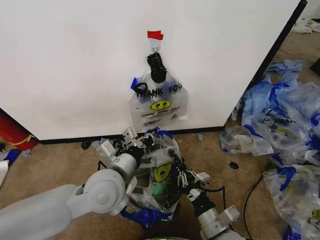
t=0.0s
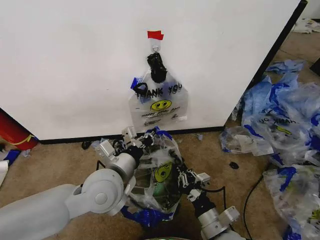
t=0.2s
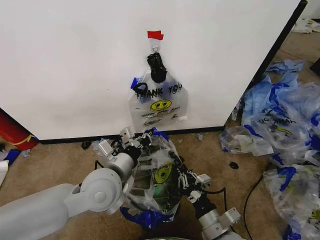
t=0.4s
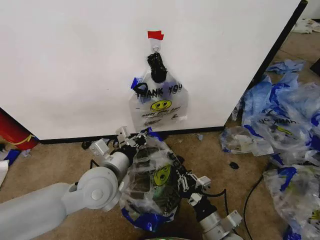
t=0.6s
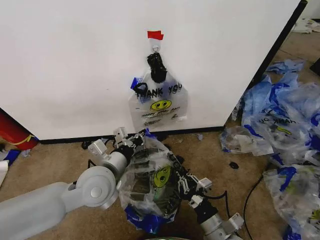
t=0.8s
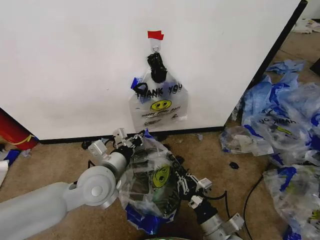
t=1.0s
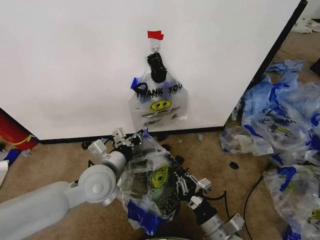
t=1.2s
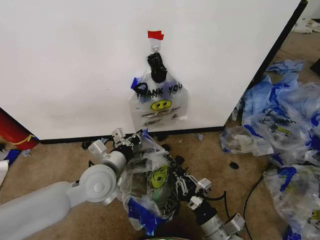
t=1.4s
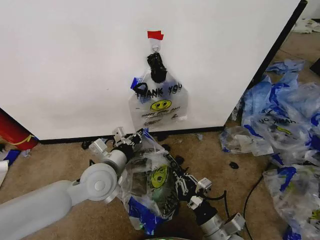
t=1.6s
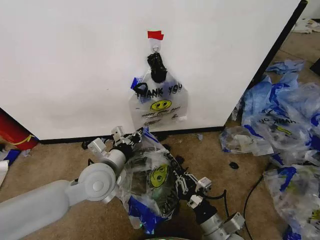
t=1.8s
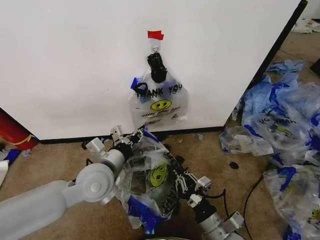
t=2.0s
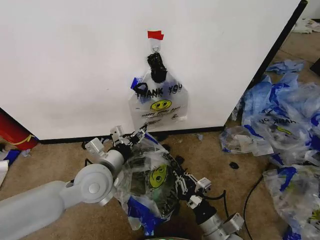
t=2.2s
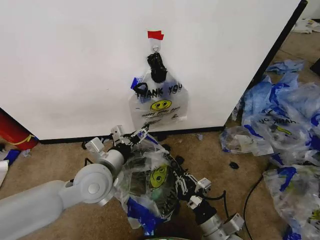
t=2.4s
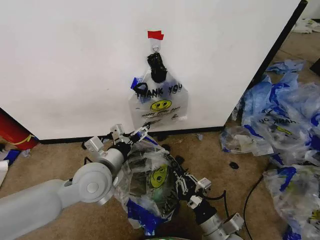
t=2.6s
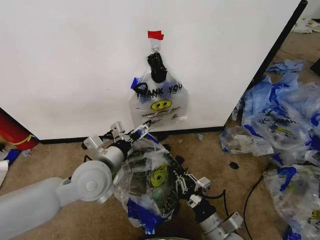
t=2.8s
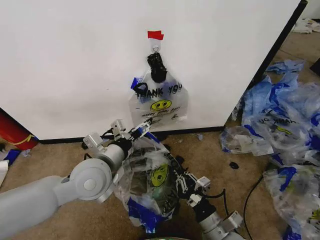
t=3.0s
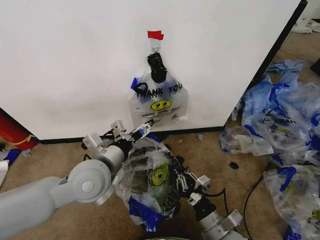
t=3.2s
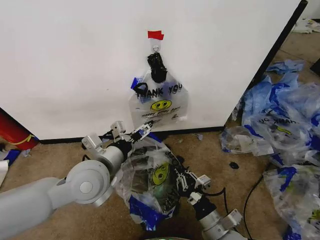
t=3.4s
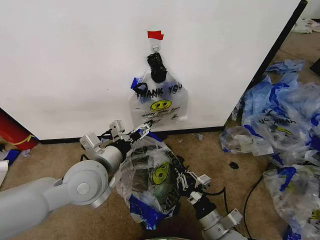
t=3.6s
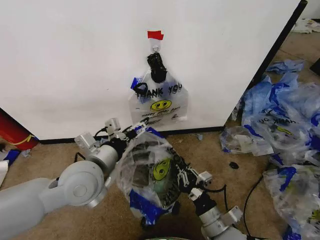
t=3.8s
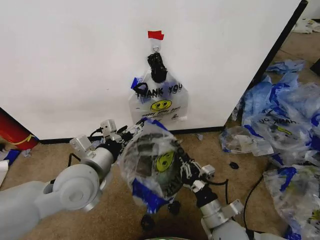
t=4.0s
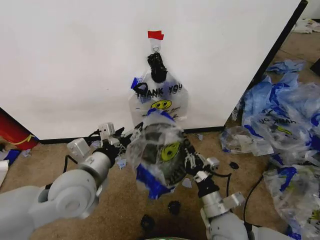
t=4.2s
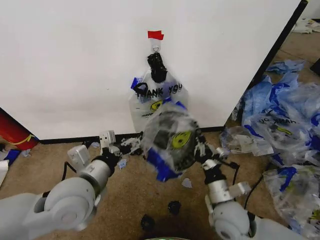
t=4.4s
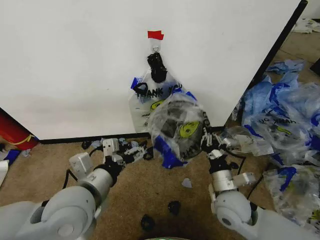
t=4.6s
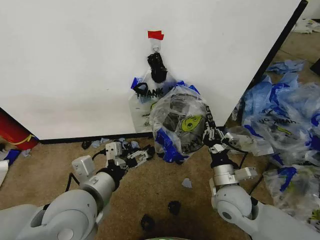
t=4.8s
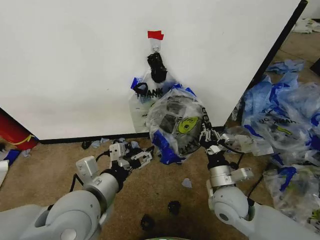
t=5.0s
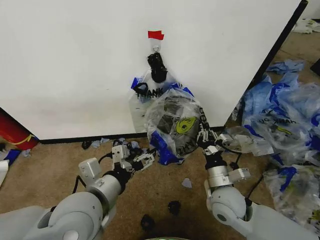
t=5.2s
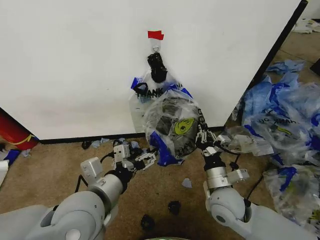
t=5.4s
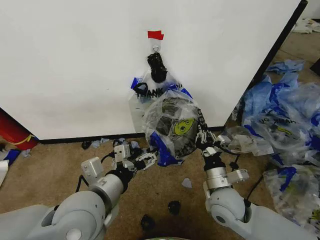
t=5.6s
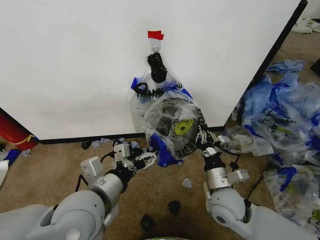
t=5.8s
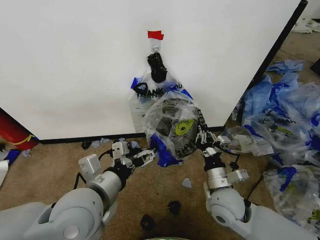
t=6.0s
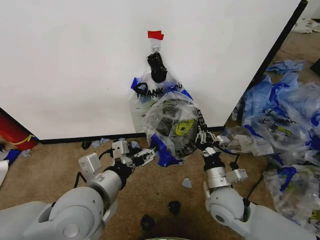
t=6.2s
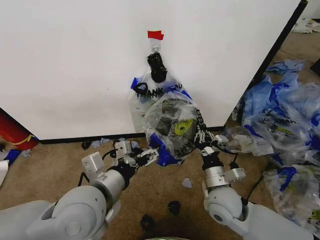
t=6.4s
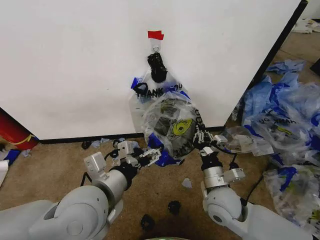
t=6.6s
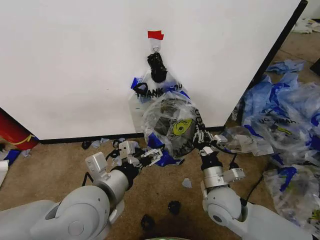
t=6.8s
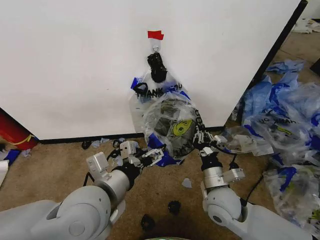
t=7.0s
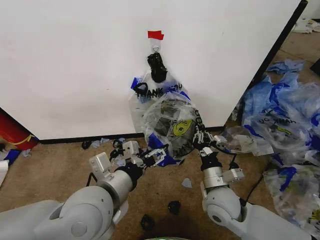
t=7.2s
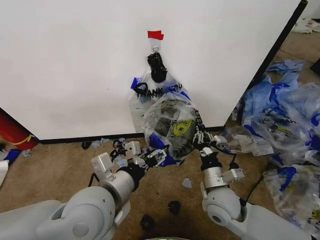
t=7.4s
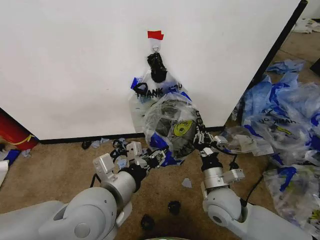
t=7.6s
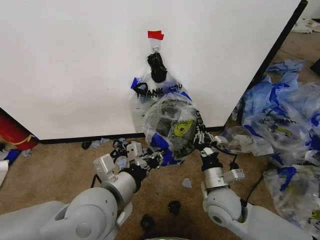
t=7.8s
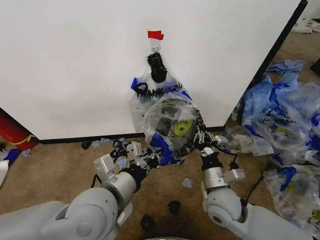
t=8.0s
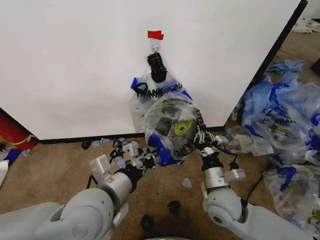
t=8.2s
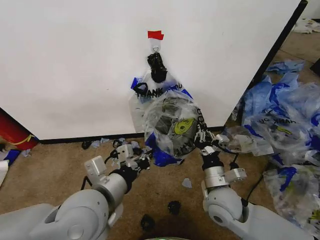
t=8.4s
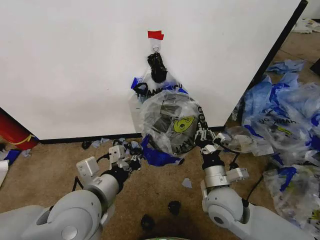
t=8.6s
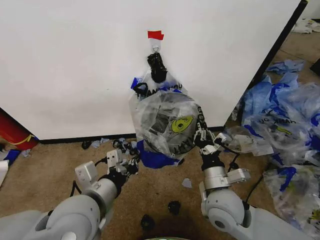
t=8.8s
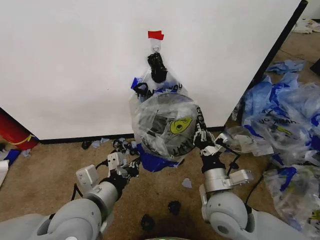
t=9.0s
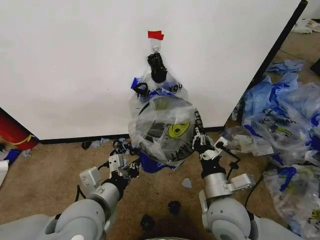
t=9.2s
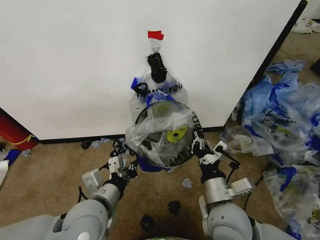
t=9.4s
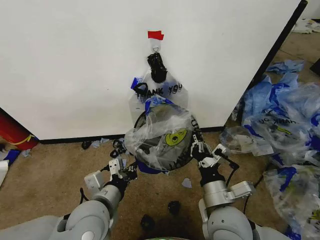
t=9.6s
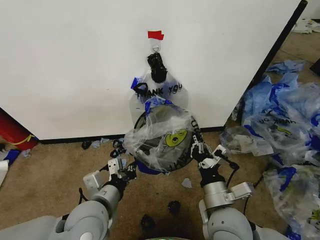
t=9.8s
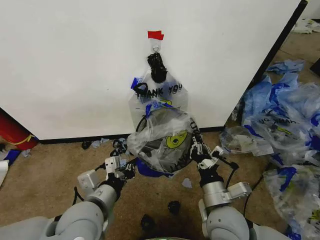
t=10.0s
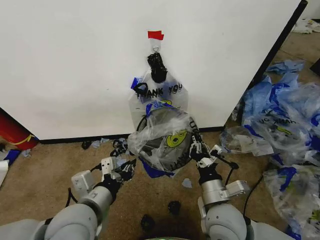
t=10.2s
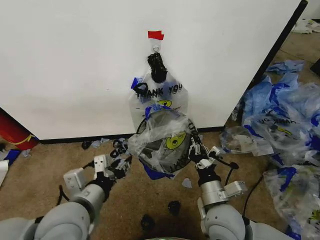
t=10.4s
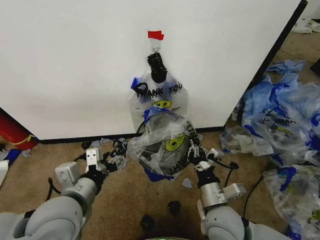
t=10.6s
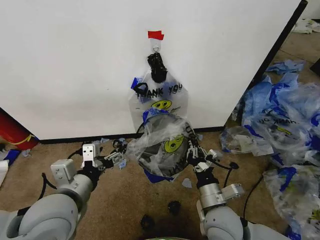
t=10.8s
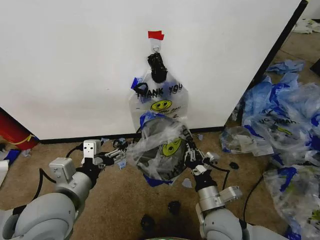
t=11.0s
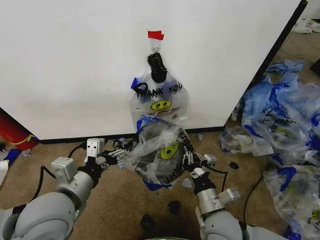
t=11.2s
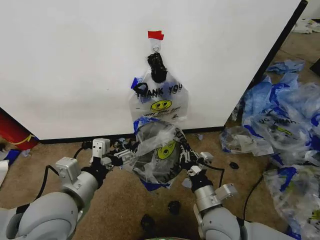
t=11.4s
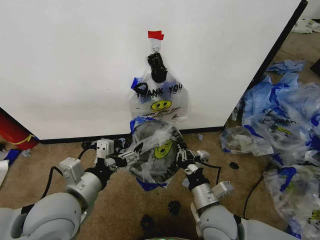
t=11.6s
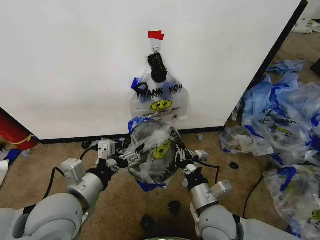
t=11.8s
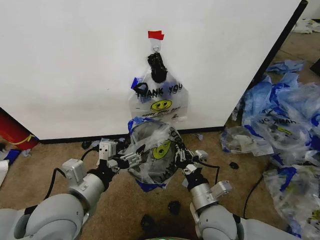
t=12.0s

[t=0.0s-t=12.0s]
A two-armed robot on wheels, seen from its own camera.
Task of the whole recording: Pick up the garbage bag from the wall and place it over the trash bin.
t=0.0s to t=1.6s: The left gripper ends up approximately 5 cm from where it was.
t=1.6s to t=3.0s: The left gripper opens.
t=3.0s to t=4.4s: The right gripper shifts some 10 cm forward, while the left gripper goes some 5 cm backward.
t=4.4s to t=6.0s: The grippers stay close to where they were, moving slightly.
t=6.0s to t=7.6s: The left gripper closes up.
t=7.6s to t=9.0s: The right gripper moves about 5 cm; the left gripper closes.
t=9.0s to t=10.4s: The left gripper opens up.
t=10.4s to t=12.0s: The left gripper opens.

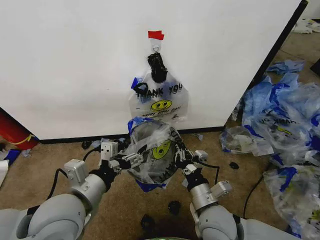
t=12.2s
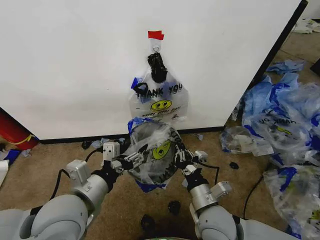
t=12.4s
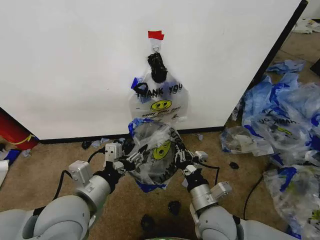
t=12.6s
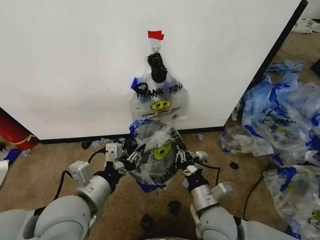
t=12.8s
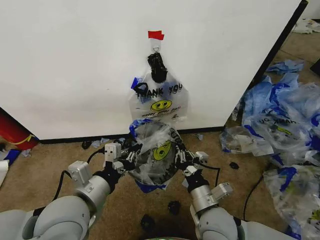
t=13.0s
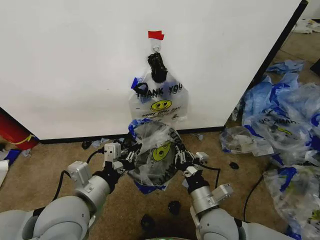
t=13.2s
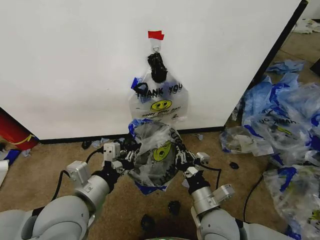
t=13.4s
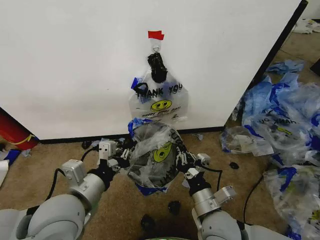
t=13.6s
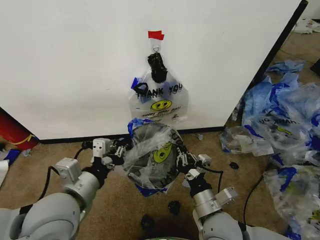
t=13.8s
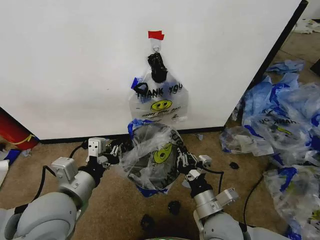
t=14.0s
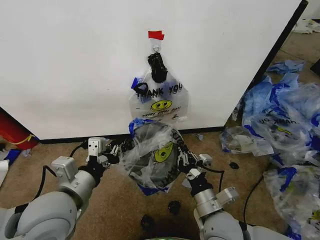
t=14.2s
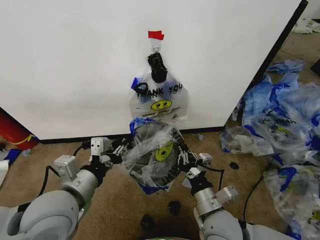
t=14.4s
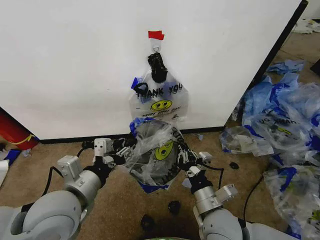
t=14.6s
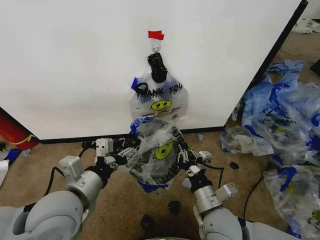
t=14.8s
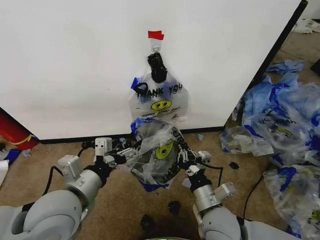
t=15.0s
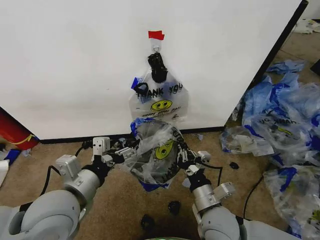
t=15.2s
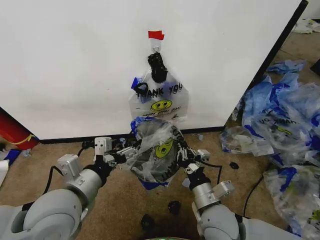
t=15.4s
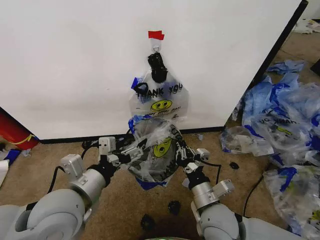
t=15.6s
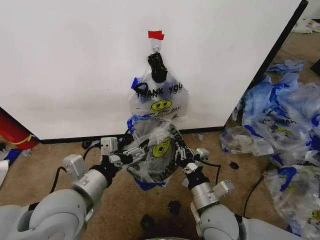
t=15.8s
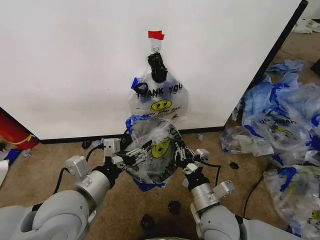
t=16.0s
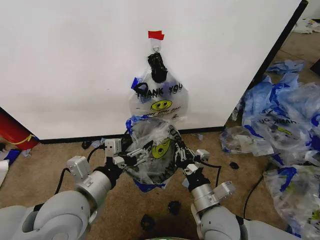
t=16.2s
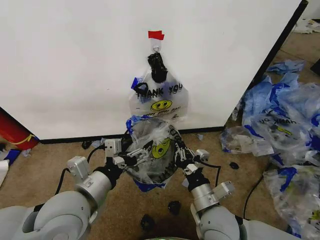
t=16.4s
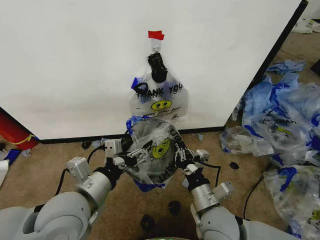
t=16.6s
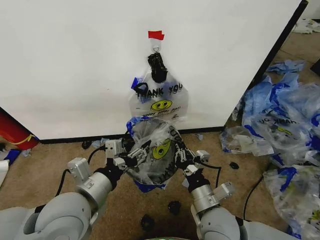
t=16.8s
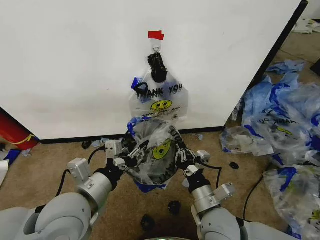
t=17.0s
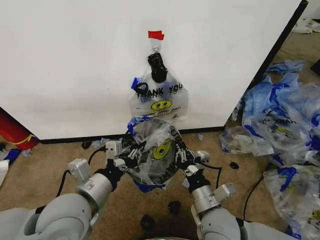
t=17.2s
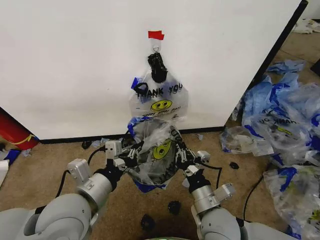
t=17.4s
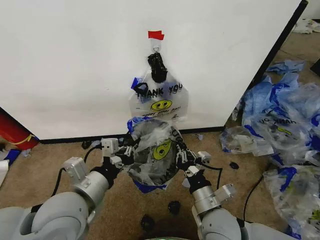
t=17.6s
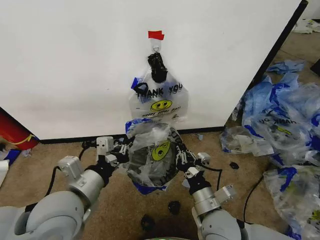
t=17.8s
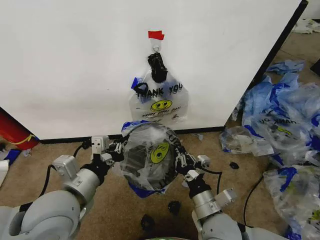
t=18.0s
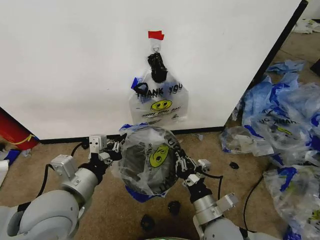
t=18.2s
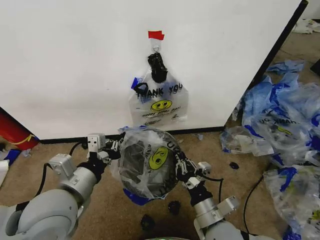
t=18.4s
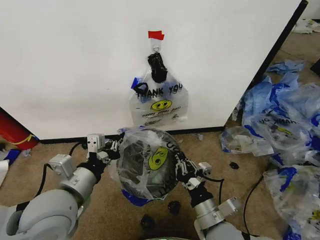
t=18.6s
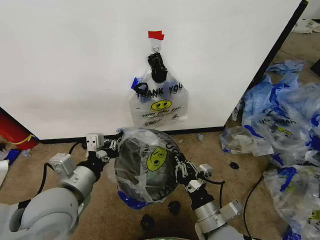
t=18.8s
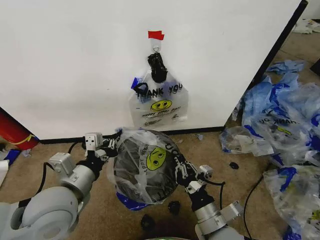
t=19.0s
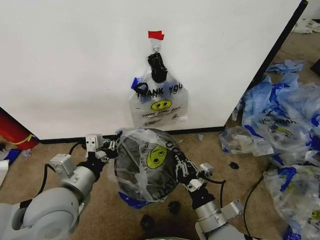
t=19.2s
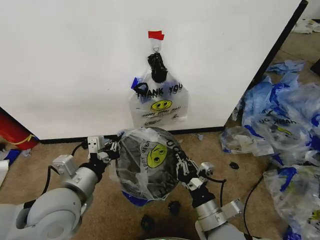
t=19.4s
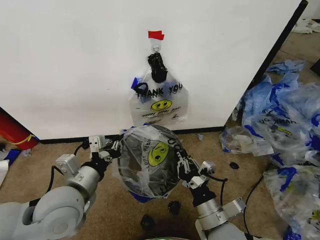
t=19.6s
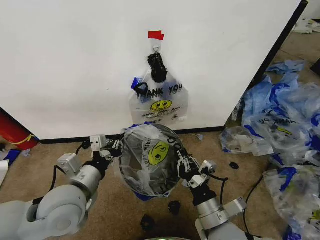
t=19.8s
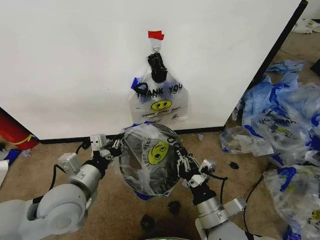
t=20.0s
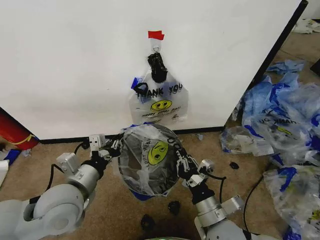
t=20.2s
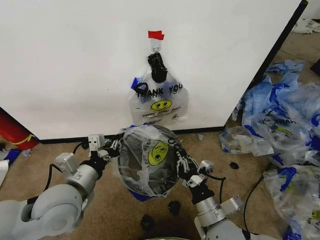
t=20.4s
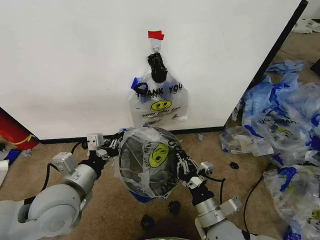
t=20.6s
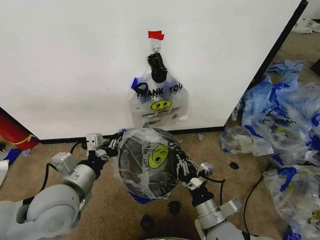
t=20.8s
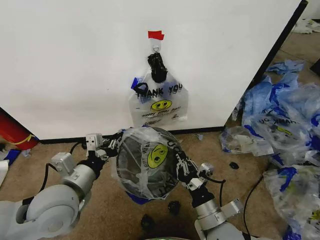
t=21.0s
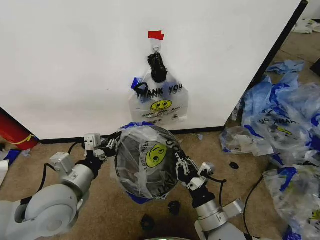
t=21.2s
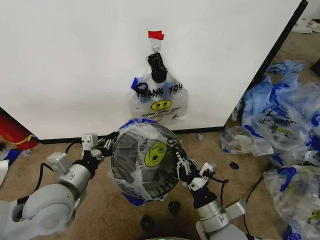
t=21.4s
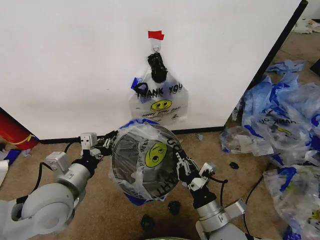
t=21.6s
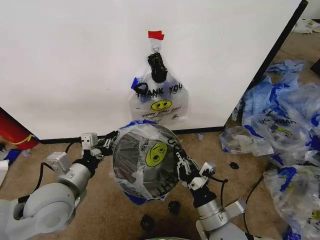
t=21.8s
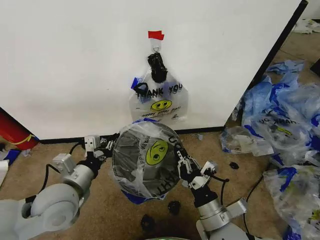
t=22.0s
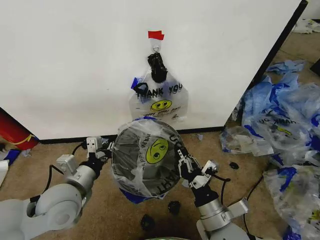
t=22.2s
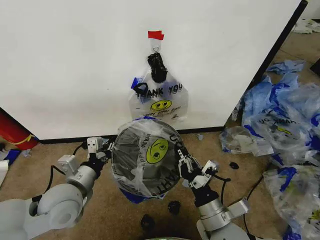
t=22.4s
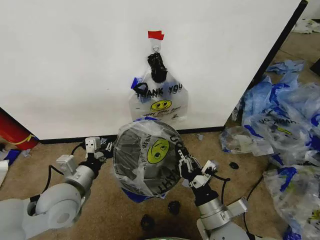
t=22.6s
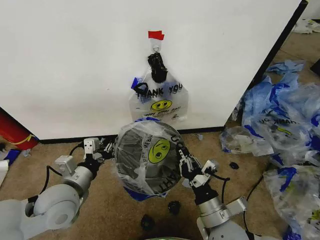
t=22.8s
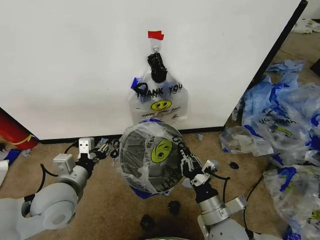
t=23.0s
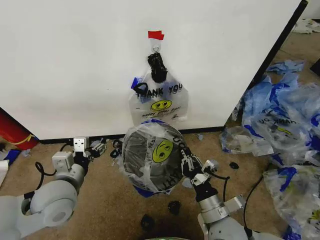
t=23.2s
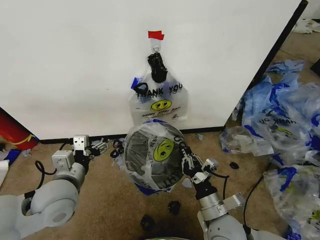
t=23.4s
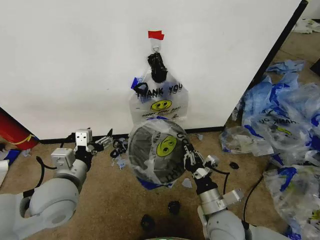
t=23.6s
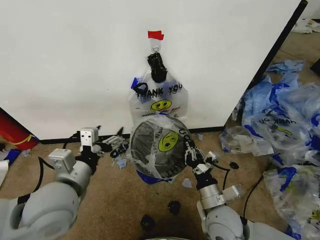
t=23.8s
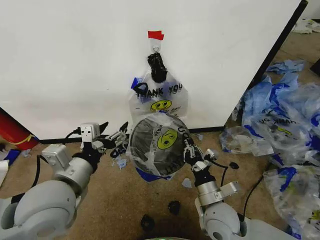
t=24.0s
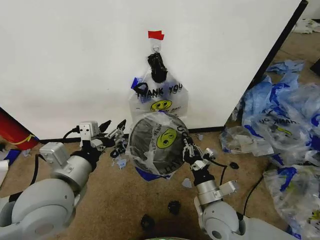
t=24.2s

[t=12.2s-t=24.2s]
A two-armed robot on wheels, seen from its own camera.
Task of the whole recording: Pick up the garbage bag from the wall and place it over the trash bin.
t=12.2s to t=13.8s: The left gripper closes.
t=13.8s to t=15.2s: The left gripper opens its fingers.
t=15.2s to t=16.6s: There are only small adjustments of the grippers.
t=16.6s to t=18.2s: The left gripper closes its fingers.
t=18.2s to t=21.2s: The grippers stay close to where they were, moving slightly.
t=21.2s to t=22.6s: The grippers make only small movements.
t=22.6s to t=24.2s: The right gripper shifts some 5 cm forward. The left gripper moves upward, roughly 10 cm, and opens its fingers.
